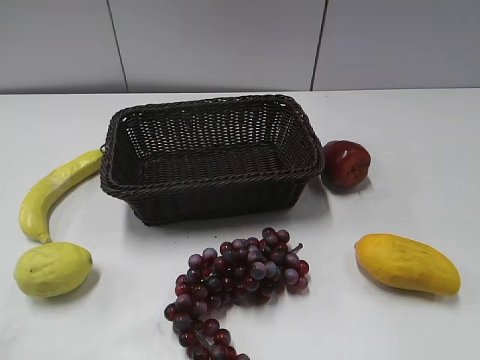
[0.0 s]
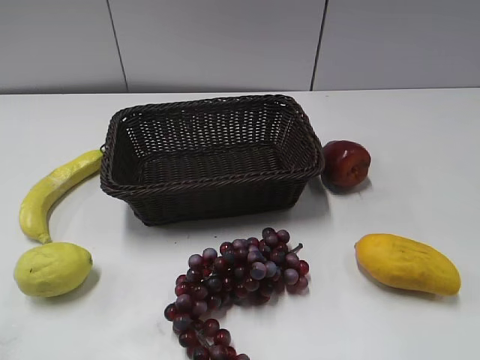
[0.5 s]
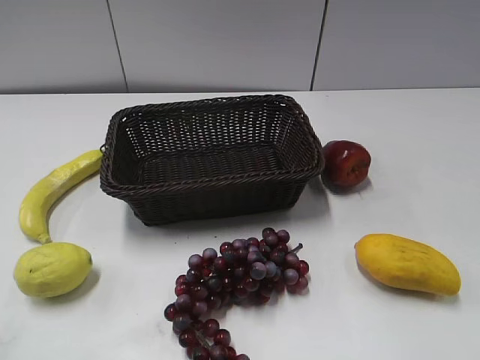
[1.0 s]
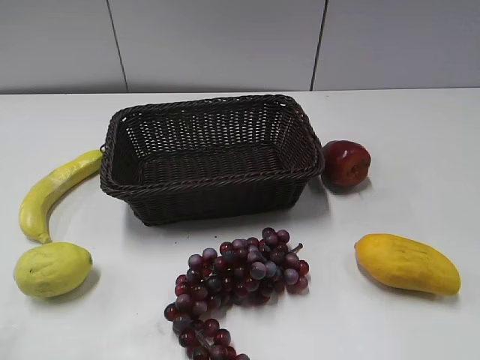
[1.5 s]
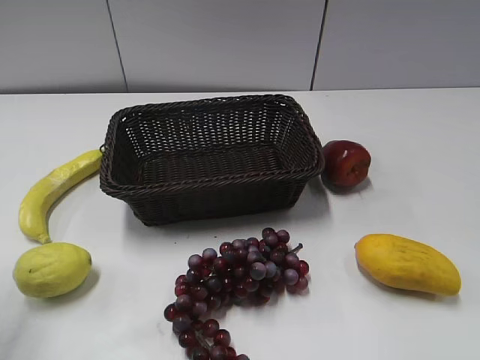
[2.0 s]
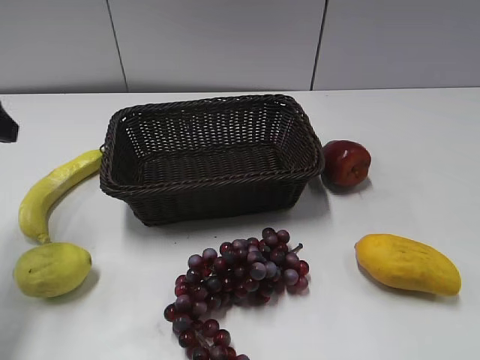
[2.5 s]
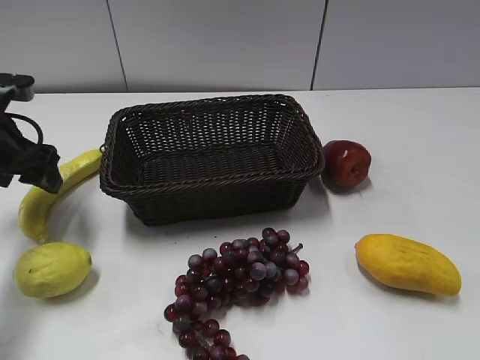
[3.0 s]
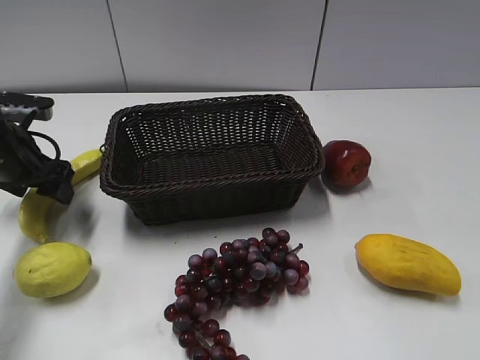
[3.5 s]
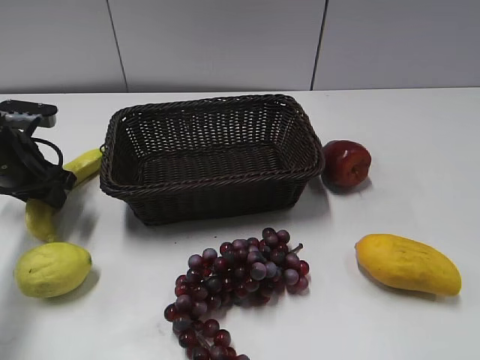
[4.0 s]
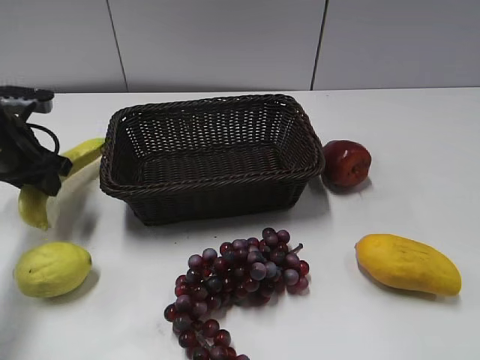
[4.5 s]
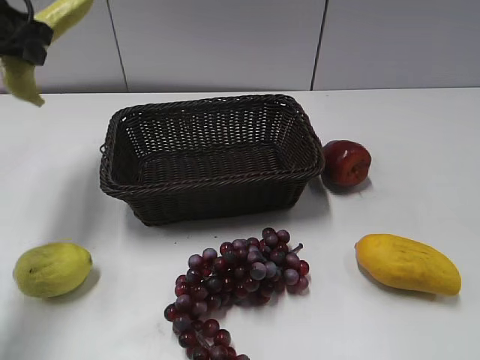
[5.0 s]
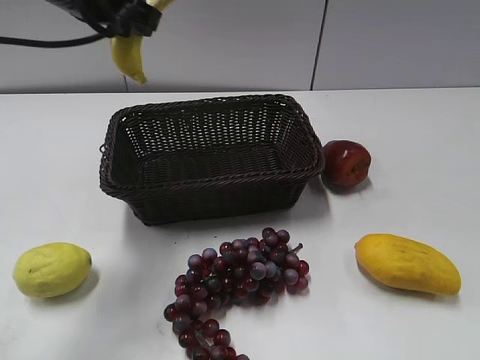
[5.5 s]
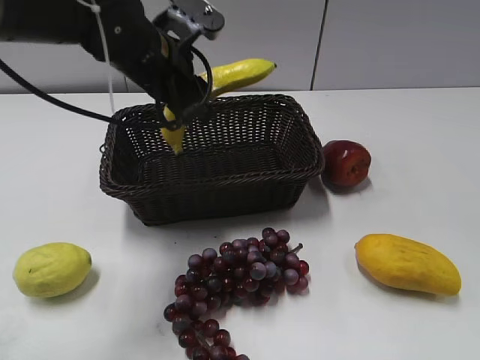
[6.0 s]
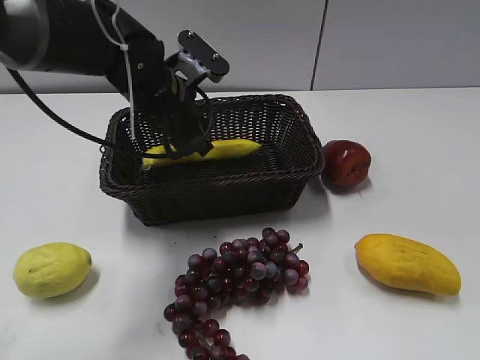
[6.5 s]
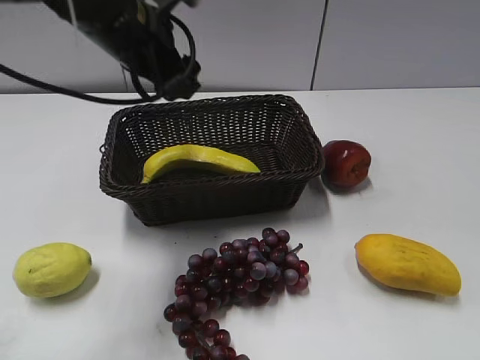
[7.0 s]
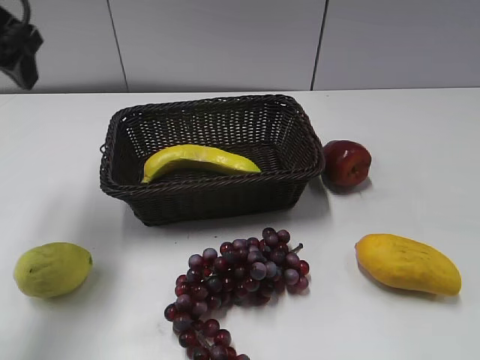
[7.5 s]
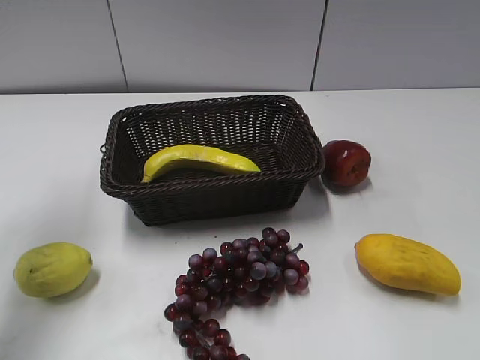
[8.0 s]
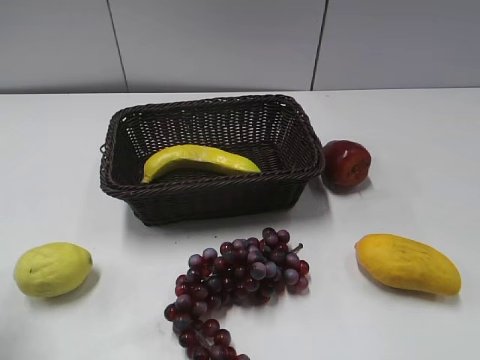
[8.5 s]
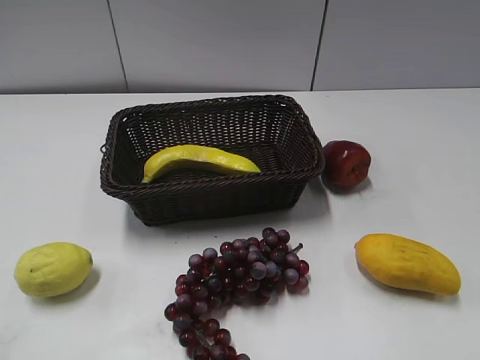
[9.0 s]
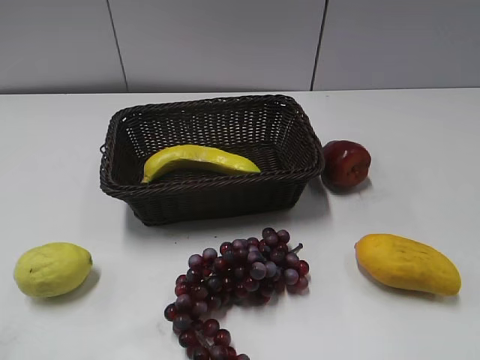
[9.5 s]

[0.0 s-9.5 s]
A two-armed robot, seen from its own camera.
Step, 2.5 to 4.0 s: Grasp the banana with left gripper.
Step, 4.5 to 6.5 s: Place the banana in the basket with left gripper.
2.0 to 4.0 s: The left gripper is displaced forward and downward by about 25 cm, and closes its fingers.
4.0 to 5.5 s: The left gripper travels upward and to the right by roughly 25 cm.
5.5 to 7.5 s: The left gripper shifts some 10 cm to the left, and opens.
7.5 to 9.5 s: The left gripper heads backward, covering some 35 cm.
